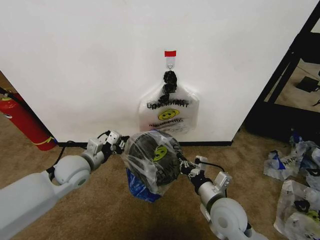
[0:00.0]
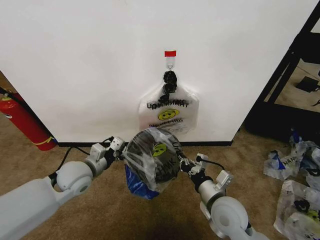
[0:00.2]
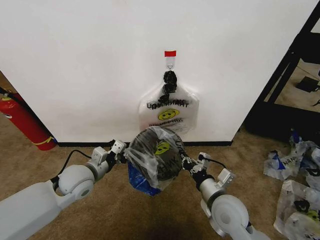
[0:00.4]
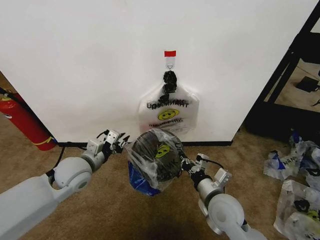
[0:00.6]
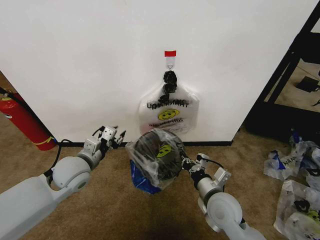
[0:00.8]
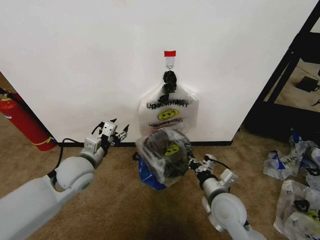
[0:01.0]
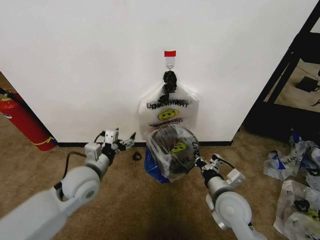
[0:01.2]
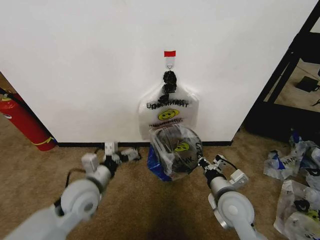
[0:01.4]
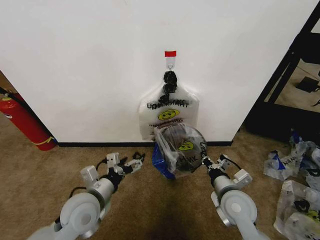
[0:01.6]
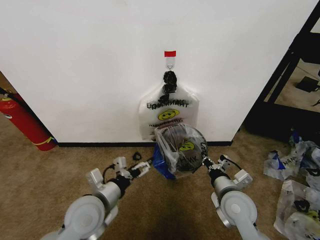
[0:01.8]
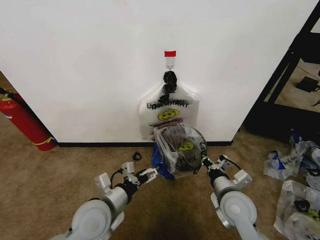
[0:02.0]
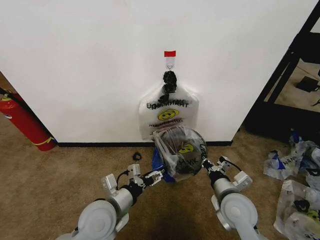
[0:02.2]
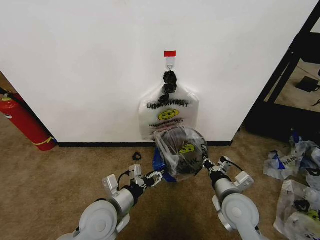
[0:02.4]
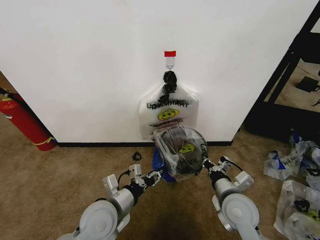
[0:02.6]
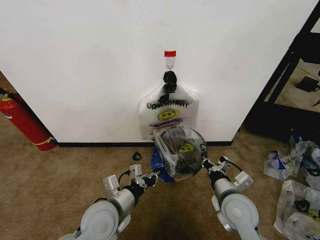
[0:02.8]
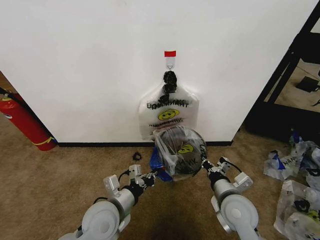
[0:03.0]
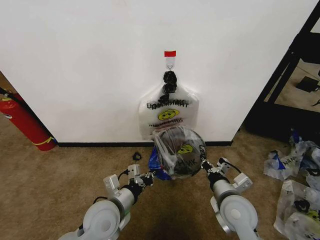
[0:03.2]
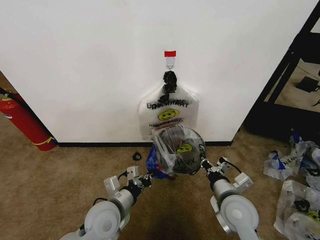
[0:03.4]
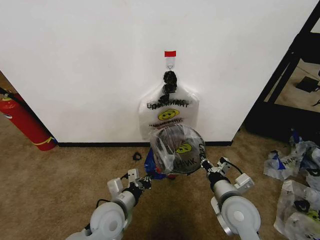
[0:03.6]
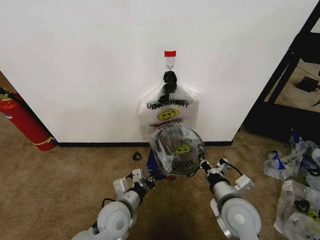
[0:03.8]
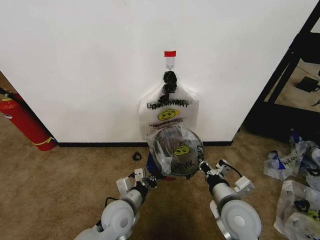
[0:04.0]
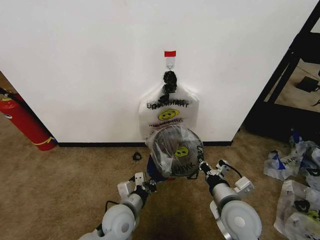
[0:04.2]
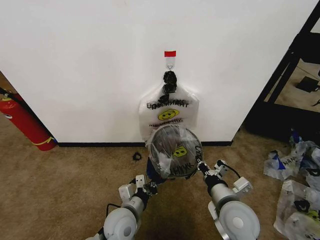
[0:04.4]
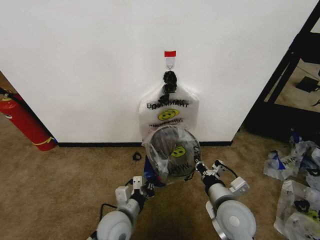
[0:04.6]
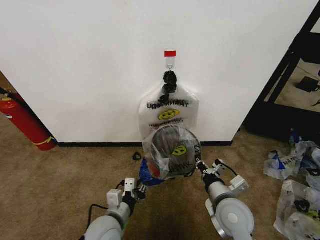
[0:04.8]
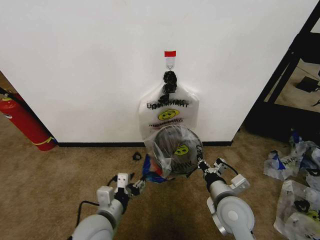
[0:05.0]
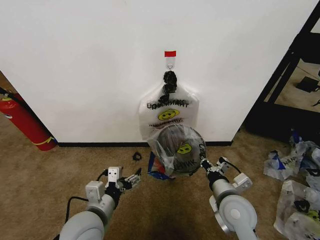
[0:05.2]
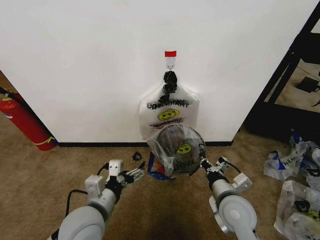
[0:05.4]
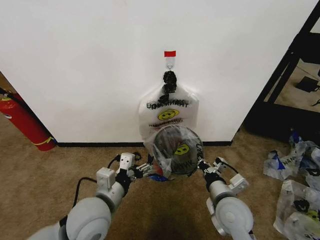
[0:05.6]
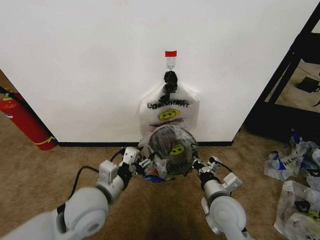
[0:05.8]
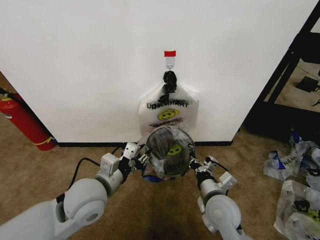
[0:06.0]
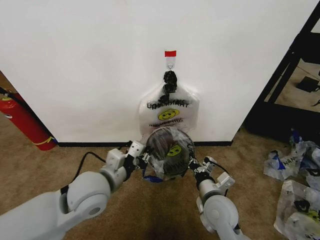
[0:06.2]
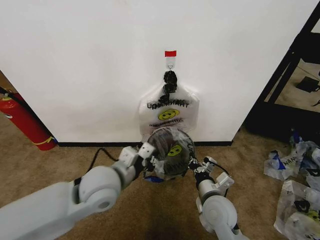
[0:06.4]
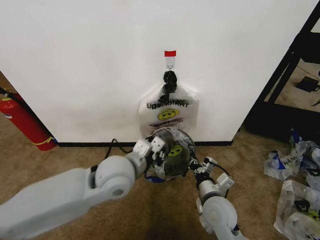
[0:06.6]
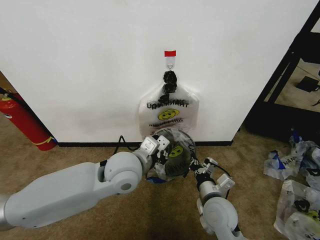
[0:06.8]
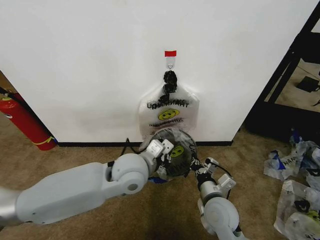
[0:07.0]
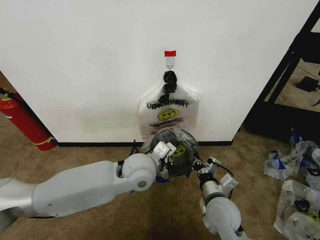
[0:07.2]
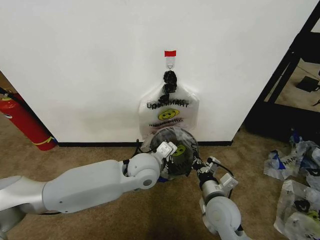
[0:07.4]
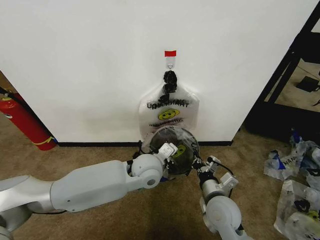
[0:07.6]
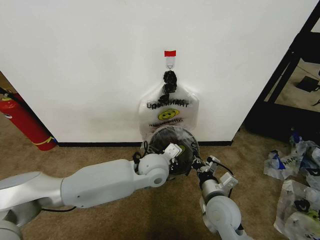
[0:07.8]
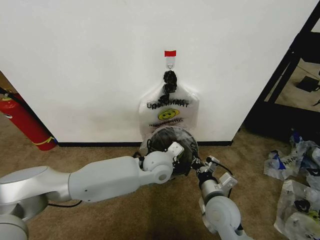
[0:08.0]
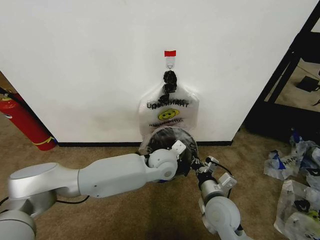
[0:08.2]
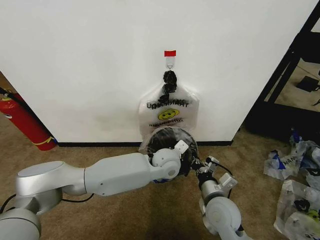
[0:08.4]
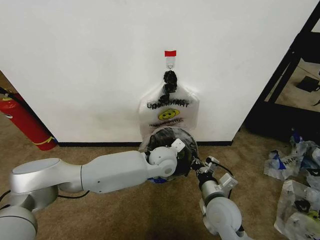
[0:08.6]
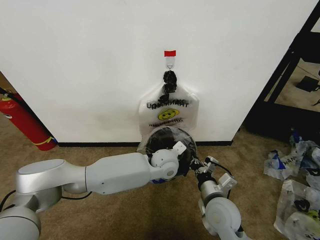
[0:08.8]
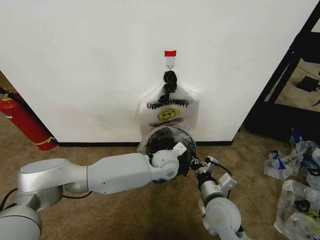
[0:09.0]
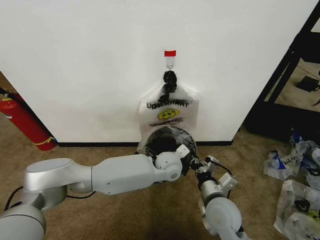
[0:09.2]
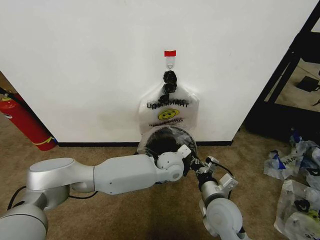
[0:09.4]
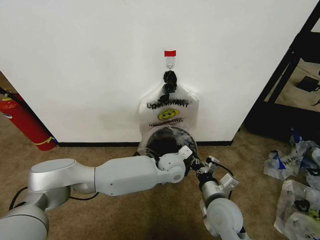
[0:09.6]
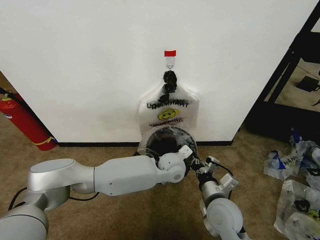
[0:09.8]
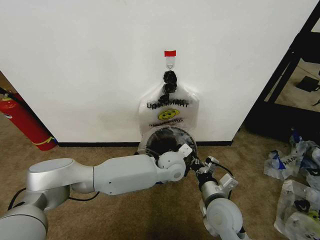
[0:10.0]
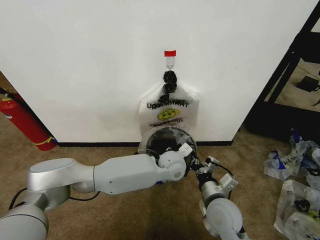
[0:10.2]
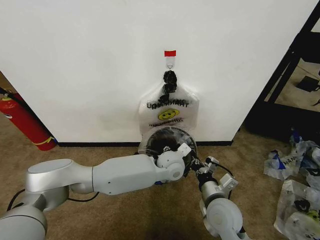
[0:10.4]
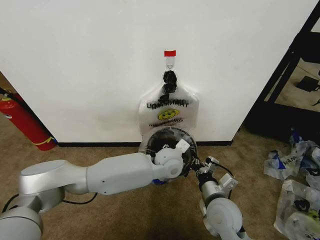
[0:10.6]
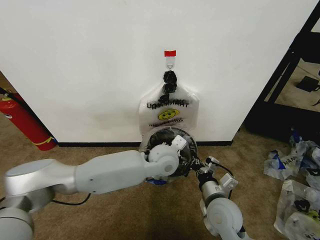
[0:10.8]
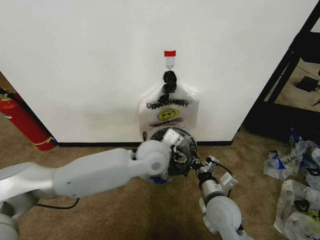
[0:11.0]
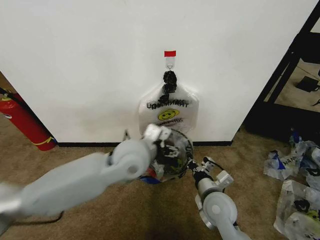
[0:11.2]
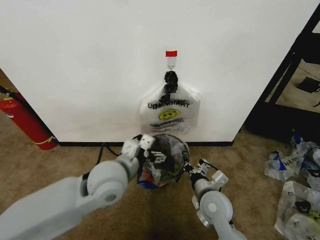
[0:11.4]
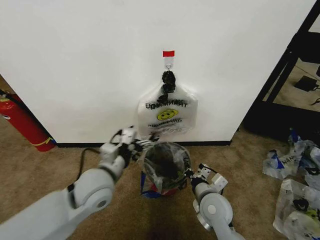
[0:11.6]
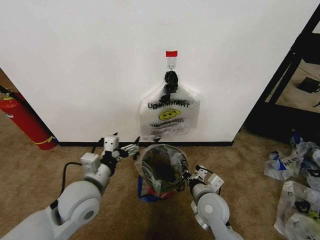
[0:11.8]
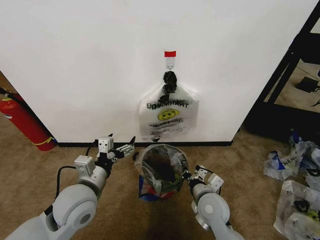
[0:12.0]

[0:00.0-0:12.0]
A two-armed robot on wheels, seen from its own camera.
Task of the whole recording: Pick up the garbage bag from the wall and place it over the trash bin.
0:00.0 to 0:01.6: The left gripper shifts roughly 15 cm backward and to the right, and opens.
0:01.6 to 0:03.0: The left gripper goes some 5 cm to the right, and closes.
0:03.0 to 0:04.4: The left gripper travels downward by approximately 10 cm.
0:04.4 to 0:06.0: The left gripper moves upward, approximately 15 cm, and opens, then closes once more.
0:06.0 to 0:07.6: The left gripper goes some 15 cm to the right and forward.
0:07.6 to 0:09.0: The left gripper is displaced to the right and forward by roughly 10 cm.
0:09.0 to 0:10.4: The left gripper opens up.
0:10.4 to 0:12.0: The left gripper heads to the left and backward, covering about 30 cm.

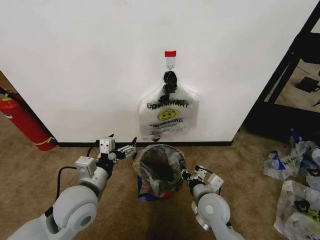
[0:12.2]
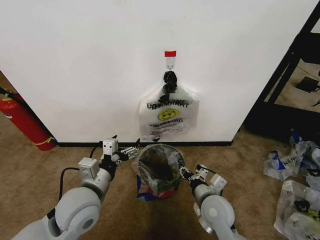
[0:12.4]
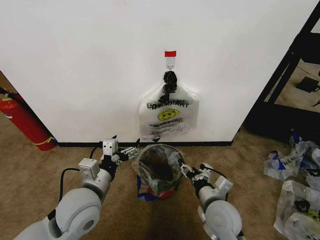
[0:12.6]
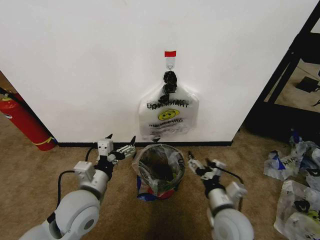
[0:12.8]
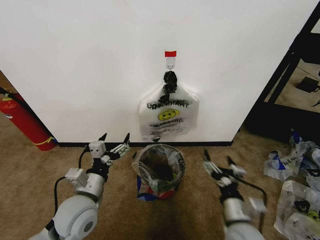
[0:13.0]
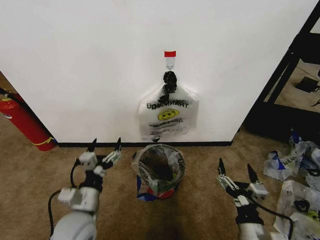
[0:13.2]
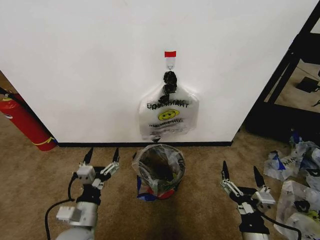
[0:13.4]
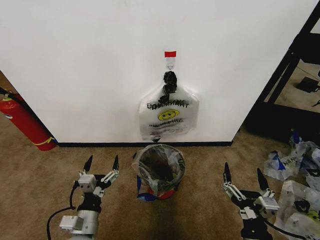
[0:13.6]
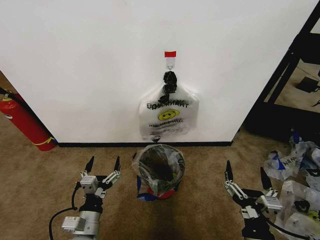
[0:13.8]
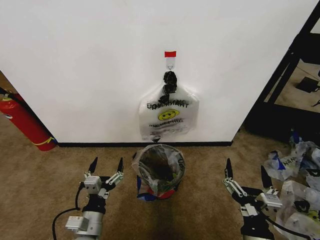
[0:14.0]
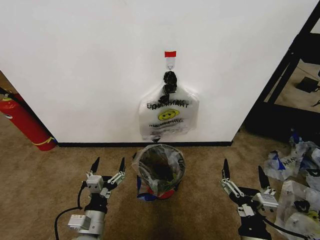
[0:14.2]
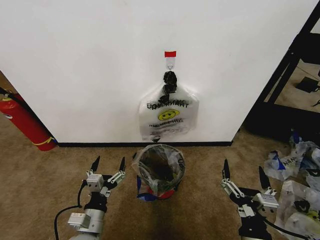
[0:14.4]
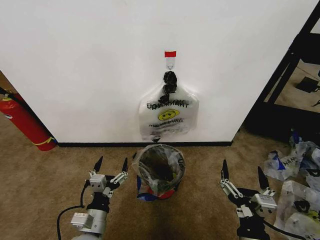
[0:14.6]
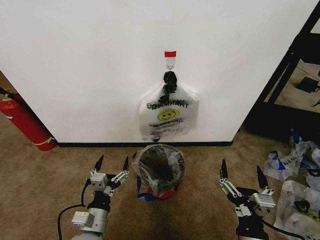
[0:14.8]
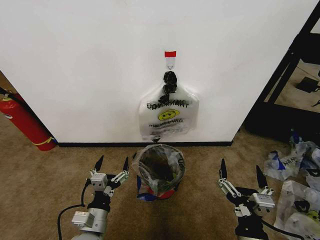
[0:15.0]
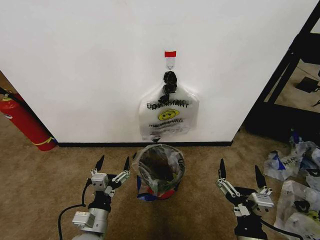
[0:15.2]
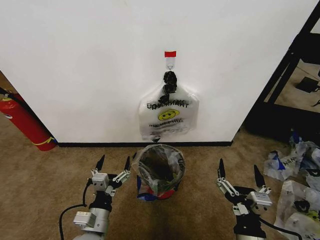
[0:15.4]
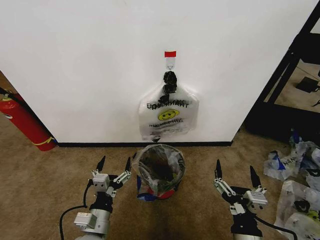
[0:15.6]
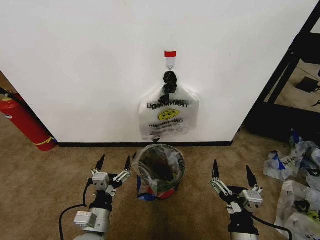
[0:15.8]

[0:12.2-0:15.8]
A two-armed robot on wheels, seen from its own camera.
Task of the whole recording: Pick up the garbage bag from the wall and place it over the trash bin.
0:12.2 to 0:14.0: The right gripper heads backward, covering roughly 20 cm, and opens up, while the left gripper moves downward and backward, about 15 cm.
0:14.0 to 0:15.8: The grippers make only small movements.

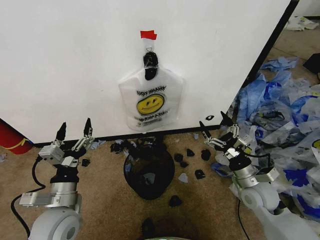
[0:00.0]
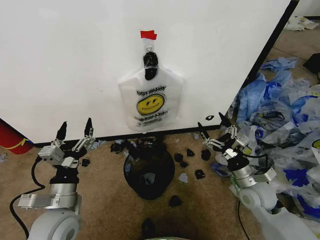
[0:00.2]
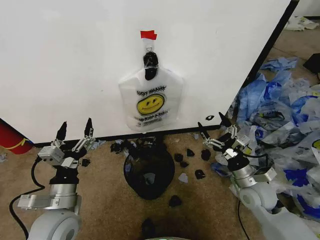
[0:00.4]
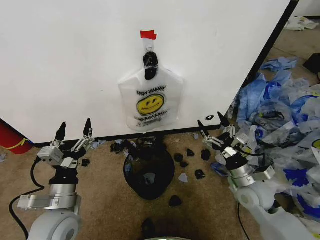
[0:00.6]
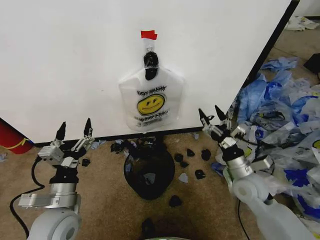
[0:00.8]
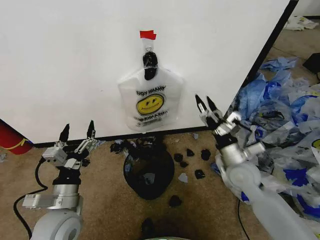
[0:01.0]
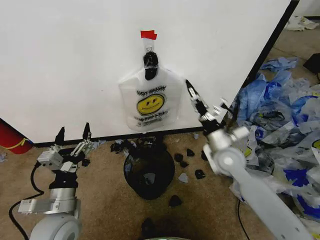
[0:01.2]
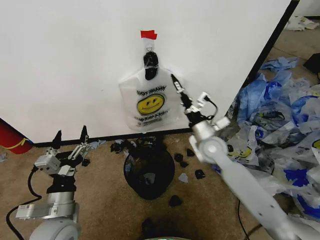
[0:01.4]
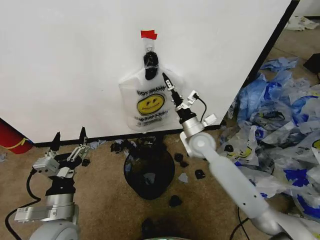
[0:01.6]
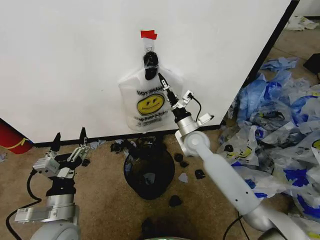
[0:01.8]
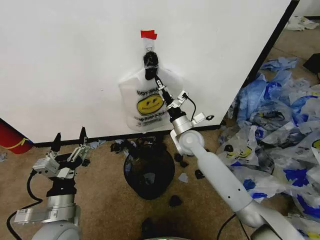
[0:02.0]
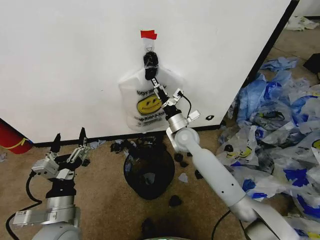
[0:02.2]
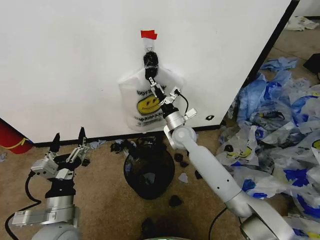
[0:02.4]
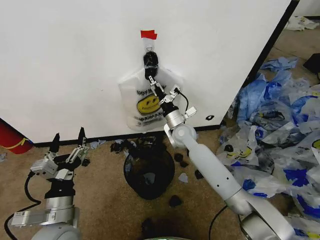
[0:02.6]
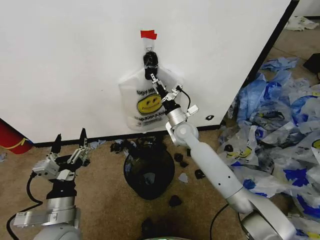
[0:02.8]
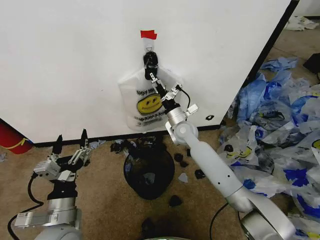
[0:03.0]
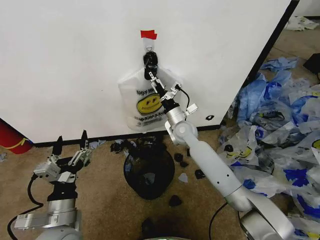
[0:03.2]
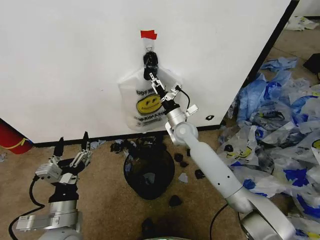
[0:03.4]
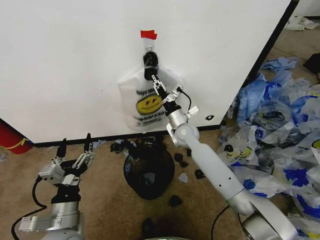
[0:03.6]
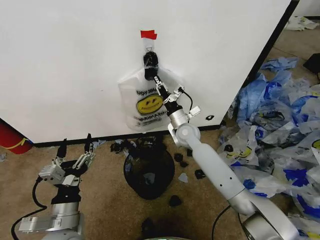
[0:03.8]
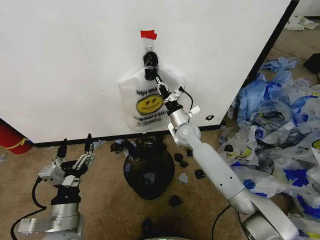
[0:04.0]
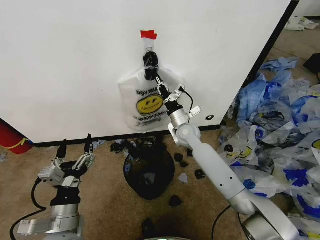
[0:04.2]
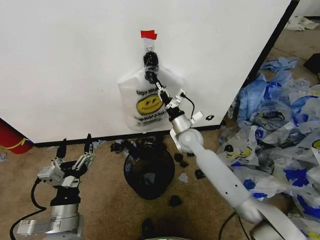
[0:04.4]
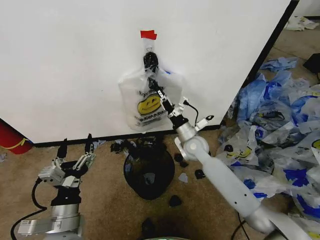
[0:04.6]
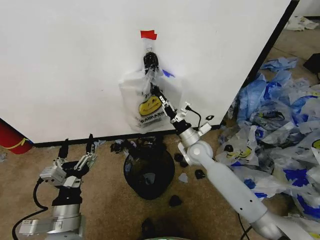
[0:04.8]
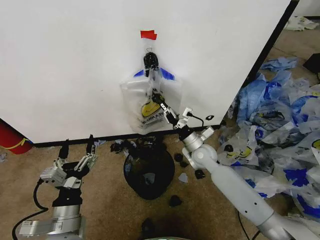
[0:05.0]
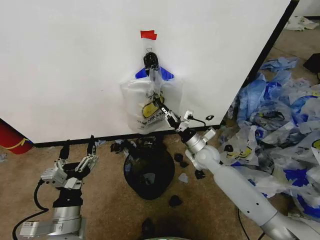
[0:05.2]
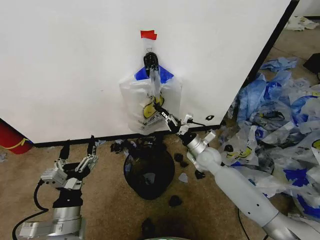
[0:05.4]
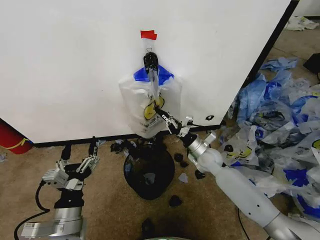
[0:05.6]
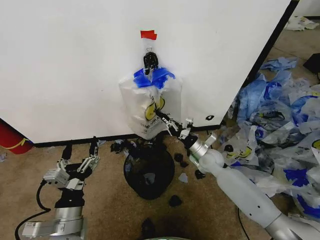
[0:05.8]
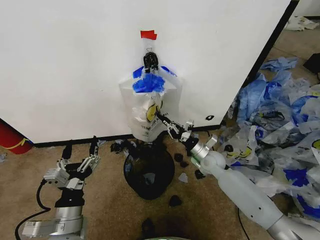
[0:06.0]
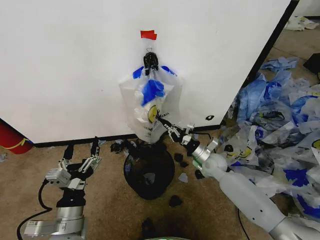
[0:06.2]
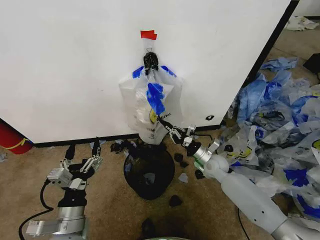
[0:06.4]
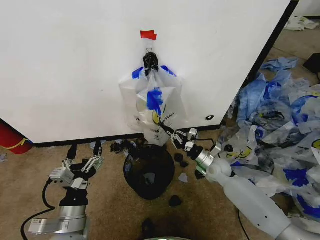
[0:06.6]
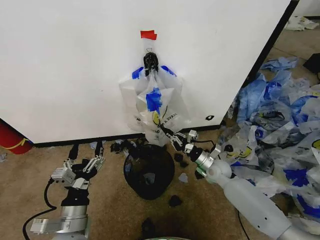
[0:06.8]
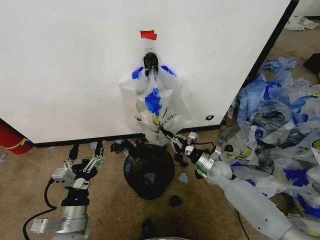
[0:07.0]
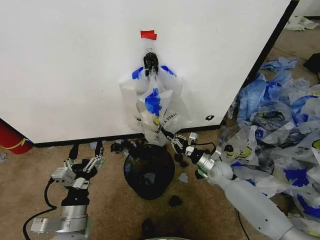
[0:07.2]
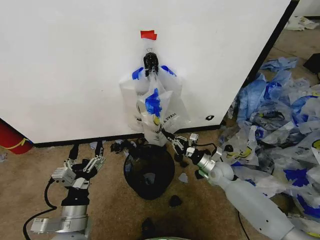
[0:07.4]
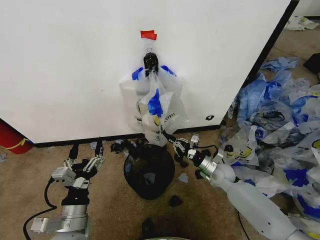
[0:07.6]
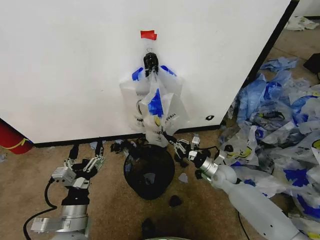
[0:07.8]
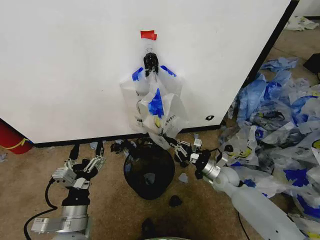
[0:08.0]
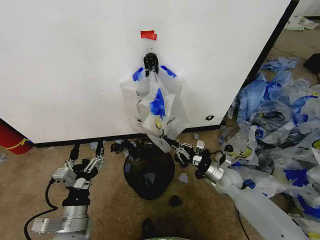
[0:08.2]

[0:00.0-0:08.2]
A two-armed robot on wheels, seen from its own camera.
Task of the whole recording: Pick up the garbage bag from the wall and place it over the trash bin.
0:01.6 to 0:03.2: The right gripper heads forward and to the left, covering roughly 10 cm.
0:03.2 to 0:05.0: The right gripper travels to the right, backward and downward by approximately 10 cm, and closes its fingers.
0:05.0 to 0:06.6: The right gripper is displaced downward and to the right by approximately 10 cm.
0:06.6 to 0:08.2: The right gripper shifts by some 5 cm.
